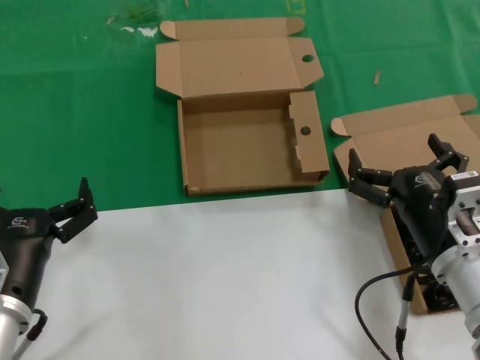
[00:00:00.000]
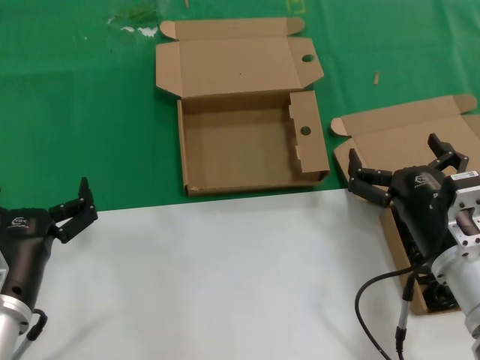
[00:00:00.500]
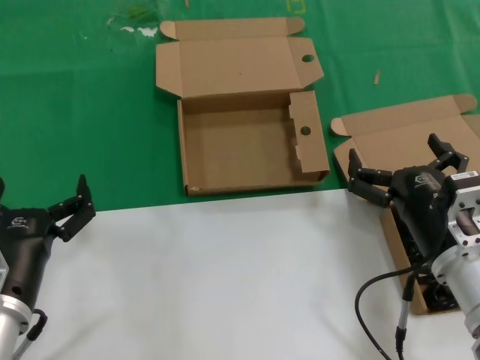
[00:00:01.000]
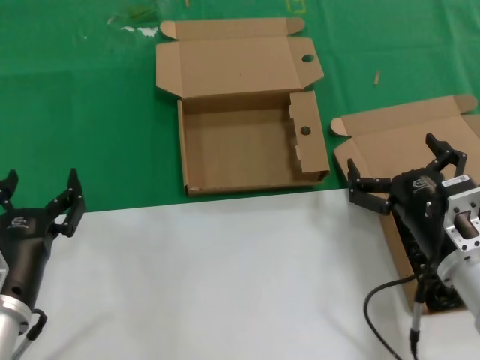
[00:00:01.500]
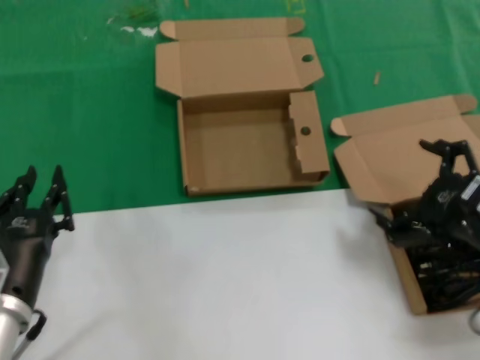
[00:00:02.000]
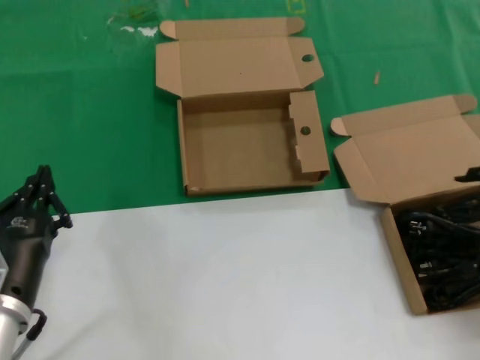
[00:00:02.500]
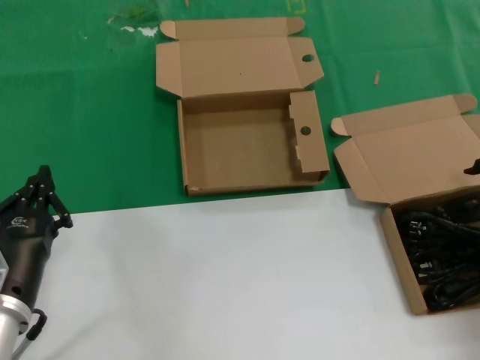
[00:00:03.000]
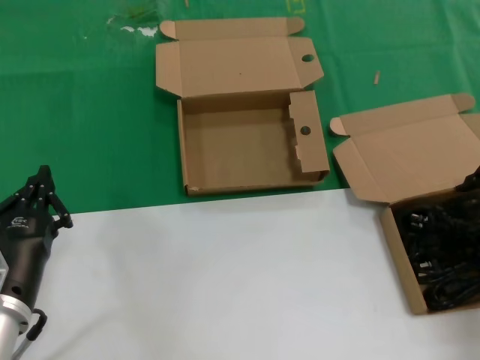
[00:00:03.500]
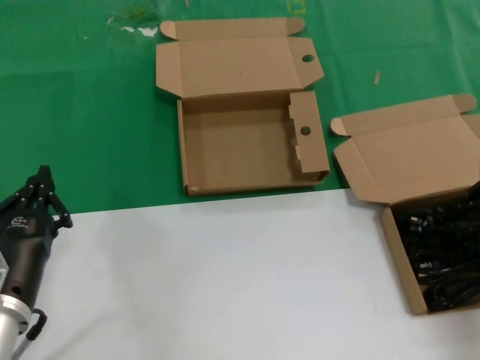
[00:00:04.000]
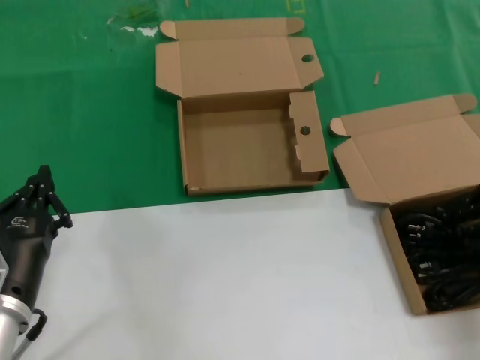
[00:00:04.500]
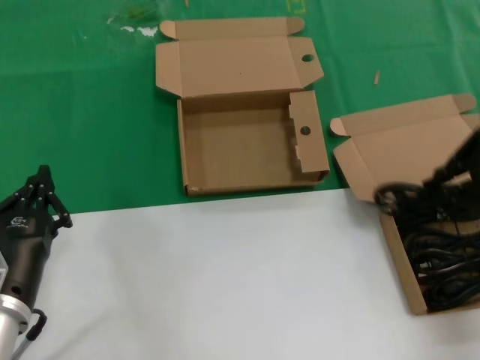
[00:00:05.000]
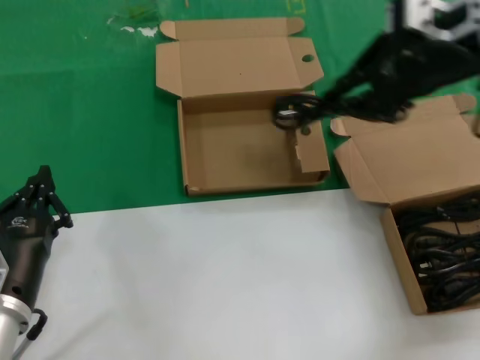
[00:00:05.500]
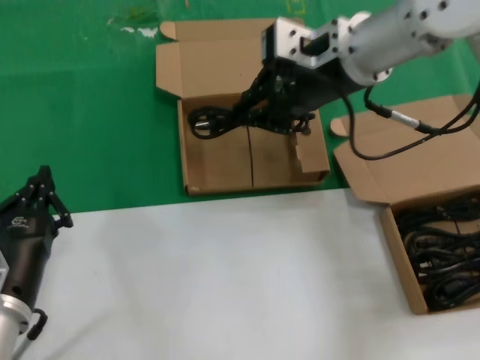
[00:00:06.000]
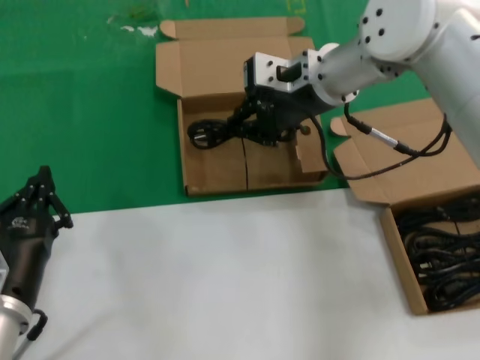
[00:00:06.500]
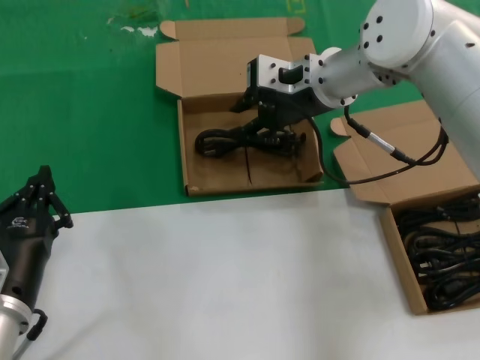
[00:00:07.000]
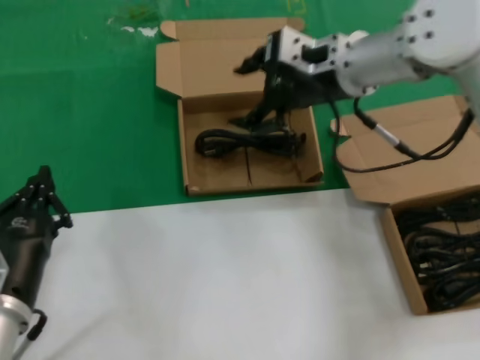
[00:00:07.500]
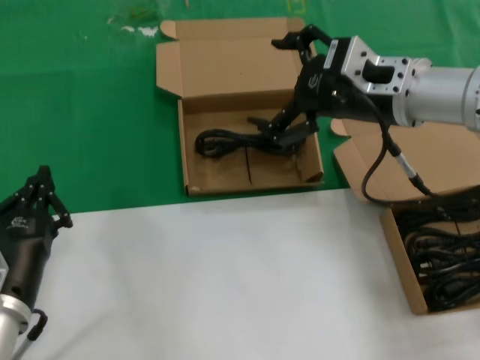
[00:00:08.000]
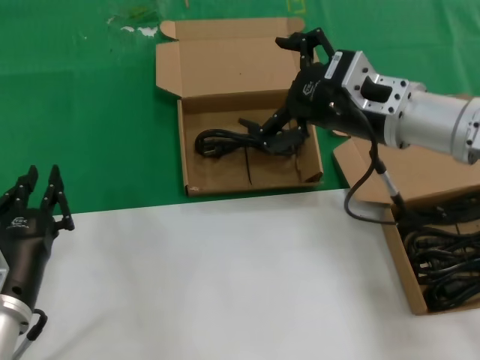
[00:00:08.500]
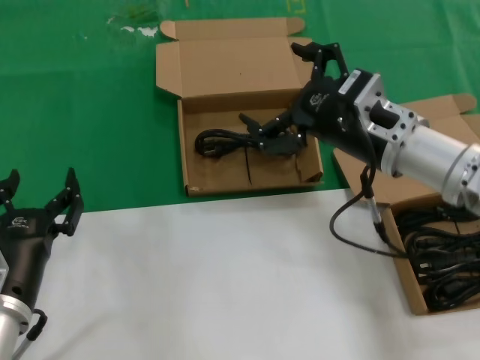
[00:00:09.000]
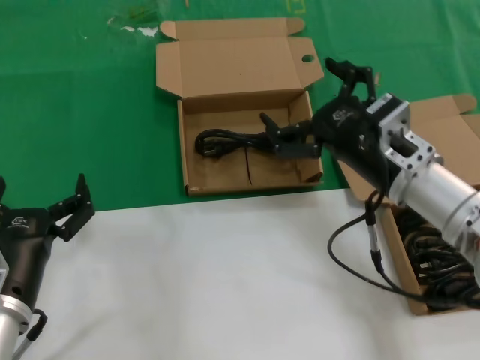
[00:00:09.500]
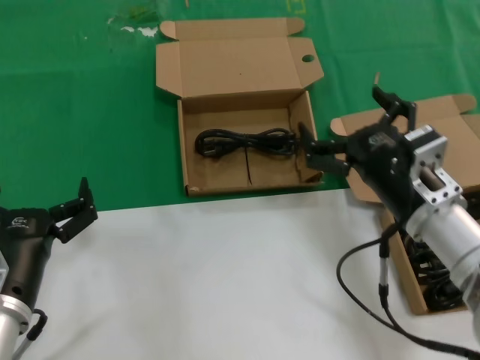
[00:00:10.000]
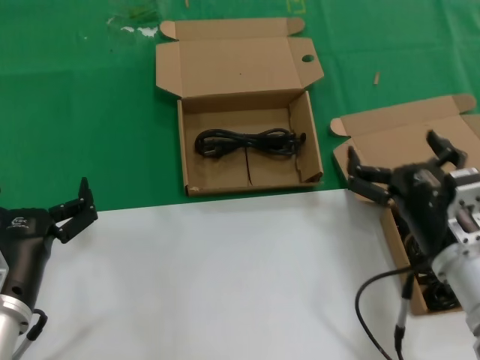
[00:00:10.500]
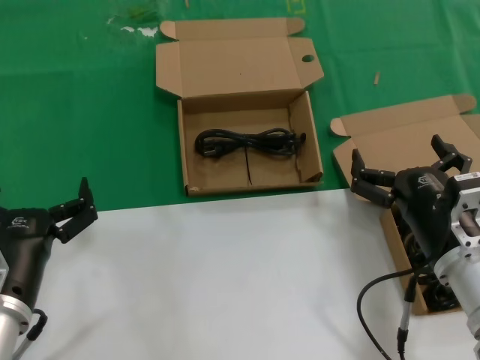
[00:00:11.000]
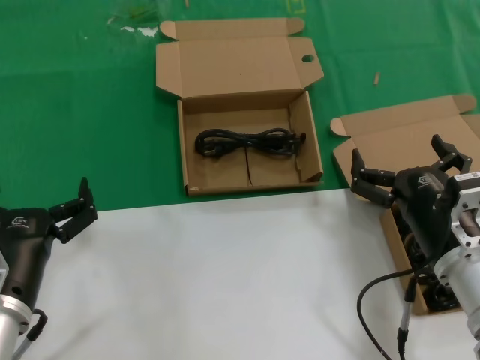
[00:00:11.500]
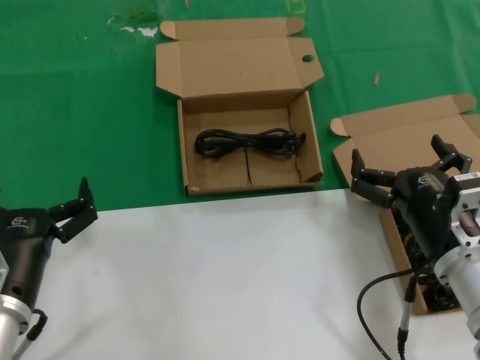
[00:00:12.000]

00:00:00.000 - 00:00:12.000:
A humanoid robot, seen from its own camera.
Task of the whole recording: take the parts from the box containing them and put them into an empty box.
Step, 00:00:00.000 - 00:00:04.000: Grasp the data cable.
Step, 00:00:04.500 - 00:00:07.000: Place the data cable in the another box.
00:00:00.000 - 00:00:02.000: The right hand travels to the right and upward by some 10 cm.
00:00:02.000 - 00:00:04.000: The right hand travels forward, upward and to the right by some 15 cm.
00:00:04.000 - 00:00:06.000: The right hand heads to the left and upward, covering about 25 cm.
00:00:06.000 - 00:00:08.000: The right hand goes roughly 10 cm downward and to the right.
00:00:08.000 - 00:00:10.000: The right hand shifts about 20 cm downward and backward.
00:00:10.000 - 00:00:12.000: The right hand ends up approximately 5 cm from where it was.

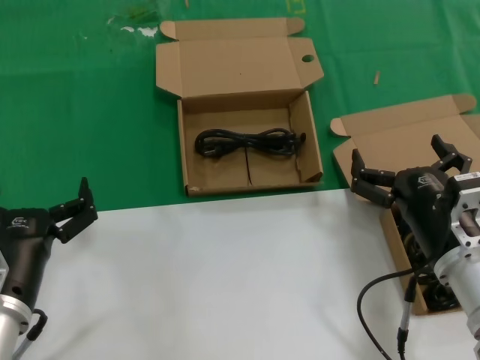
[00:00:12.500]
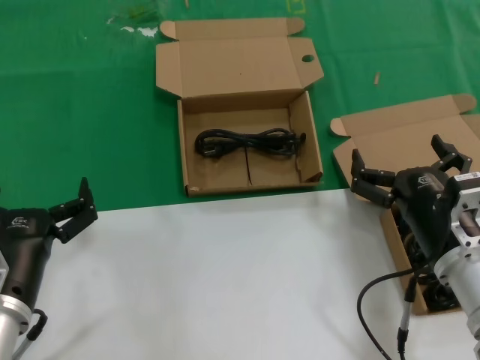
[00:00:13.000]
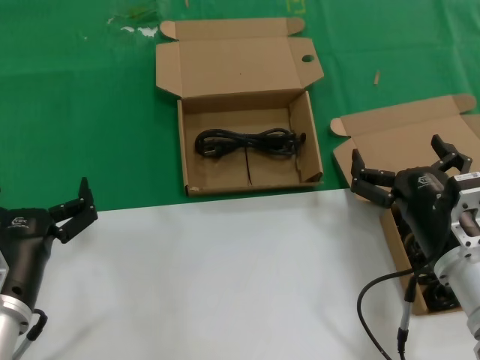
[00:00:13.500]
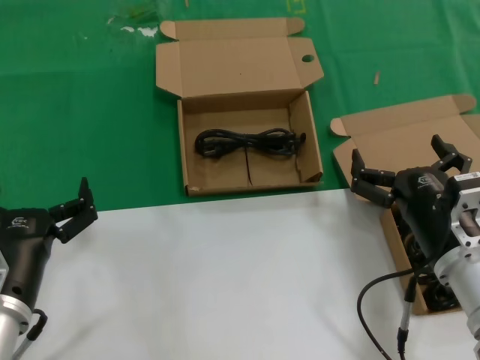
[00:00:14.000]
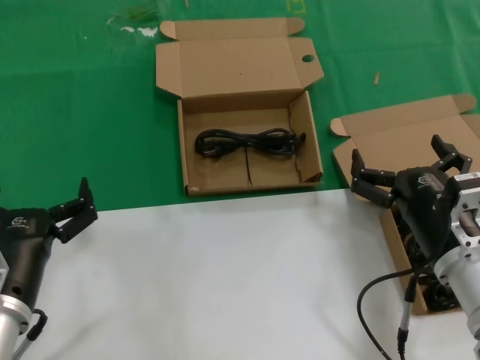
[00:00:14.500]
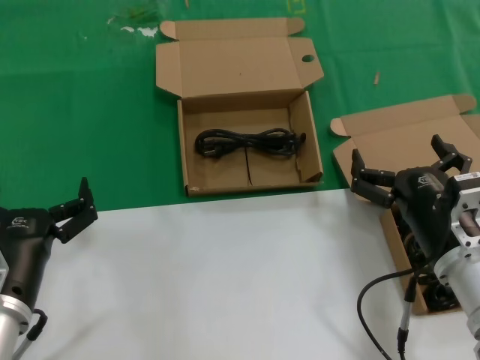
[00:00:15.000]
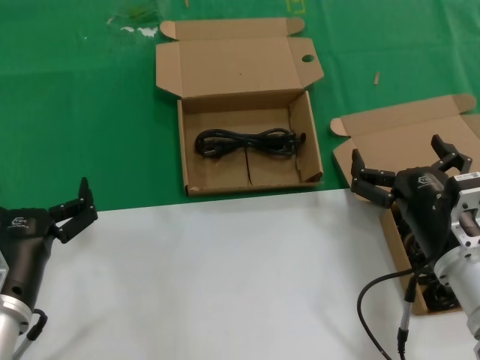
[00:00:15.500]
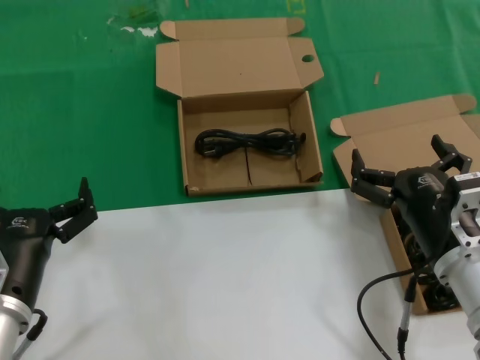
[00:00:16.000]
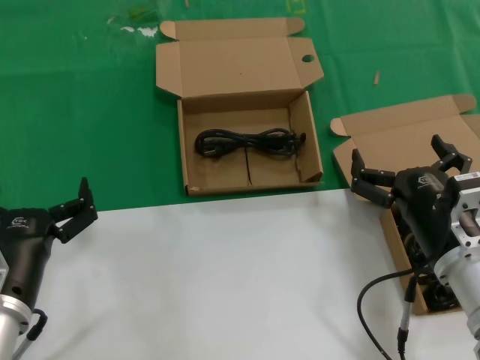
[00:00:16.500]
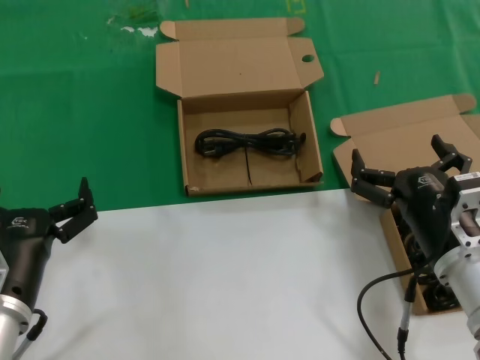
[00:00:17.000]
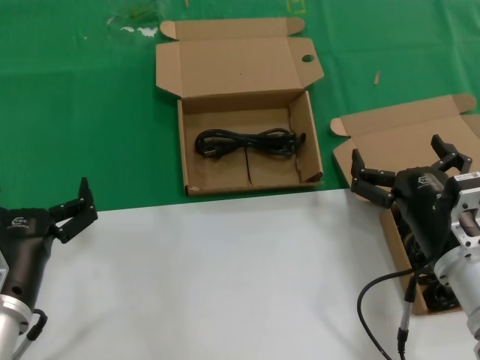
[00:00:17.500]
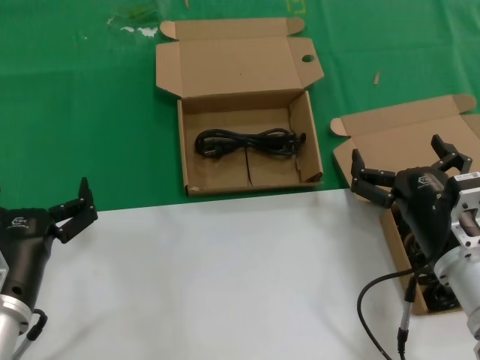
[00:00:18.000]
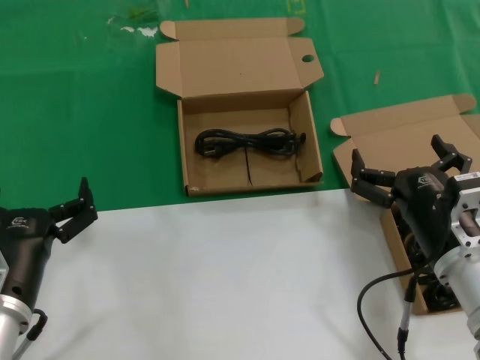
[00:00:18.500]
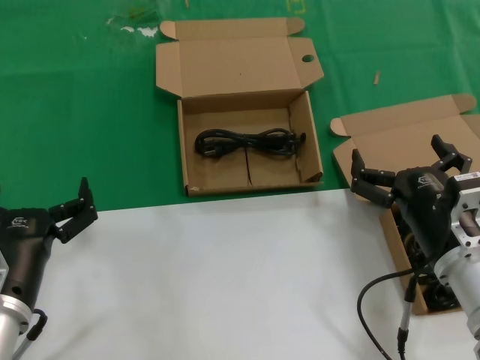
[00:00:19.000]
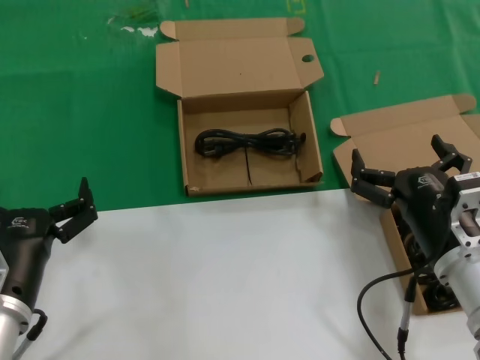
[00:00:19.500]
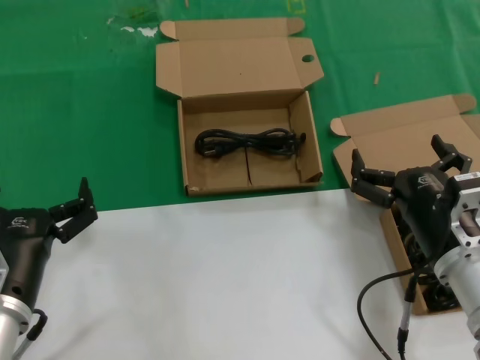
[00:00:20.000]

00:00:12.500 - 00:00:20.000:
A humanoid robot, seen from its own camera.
Task of the whole recording: take the parts from the box containing them and put them into an empty box.
00:00:12.500 - 00:00:20.000: Both hands stay put.

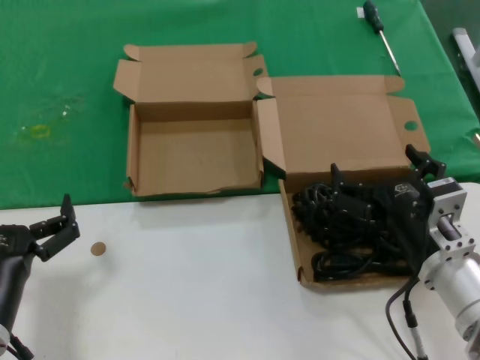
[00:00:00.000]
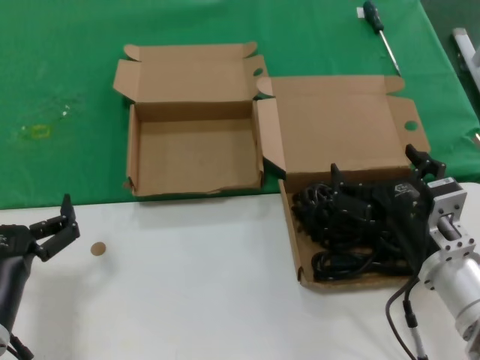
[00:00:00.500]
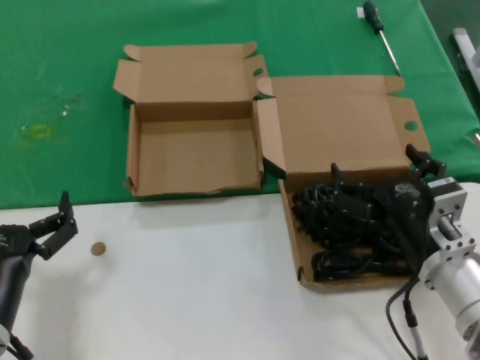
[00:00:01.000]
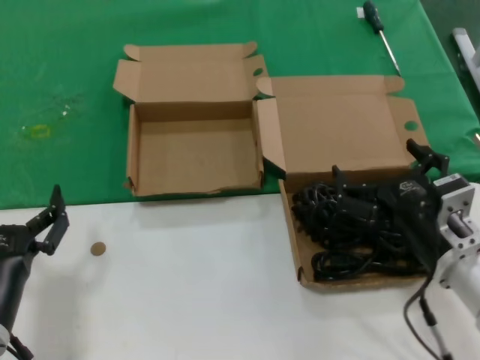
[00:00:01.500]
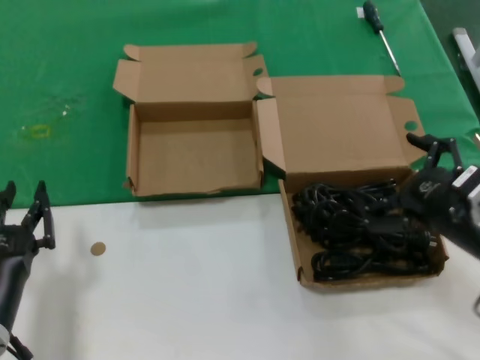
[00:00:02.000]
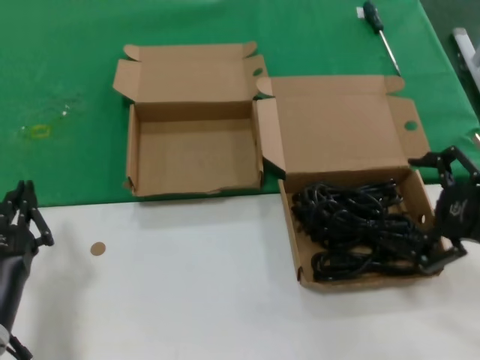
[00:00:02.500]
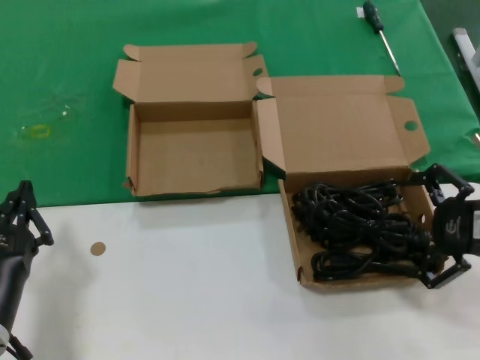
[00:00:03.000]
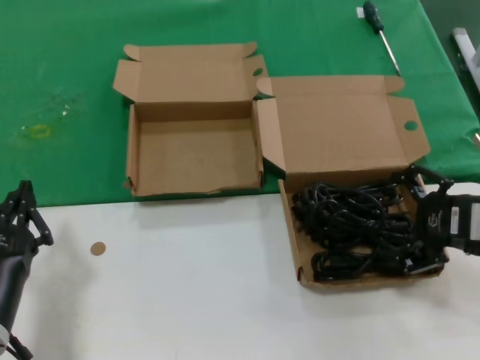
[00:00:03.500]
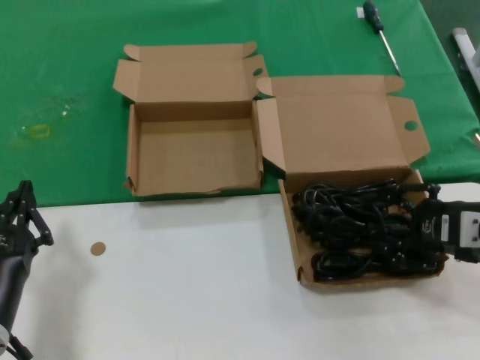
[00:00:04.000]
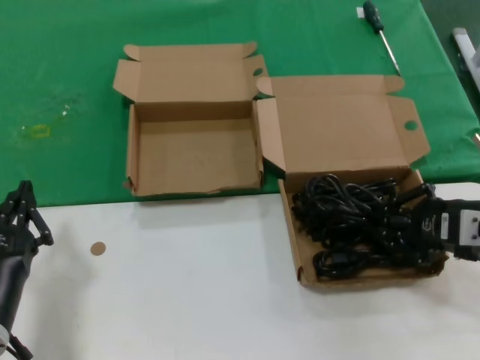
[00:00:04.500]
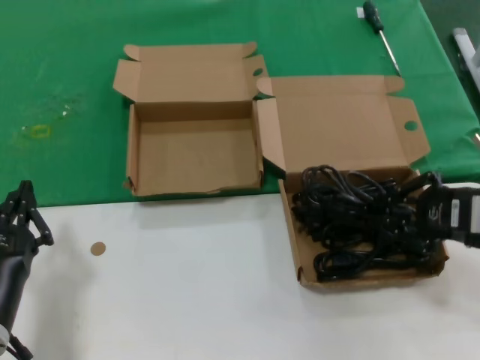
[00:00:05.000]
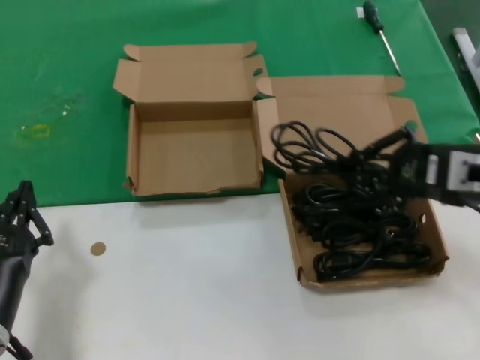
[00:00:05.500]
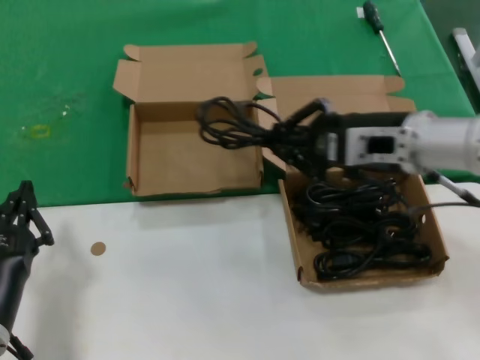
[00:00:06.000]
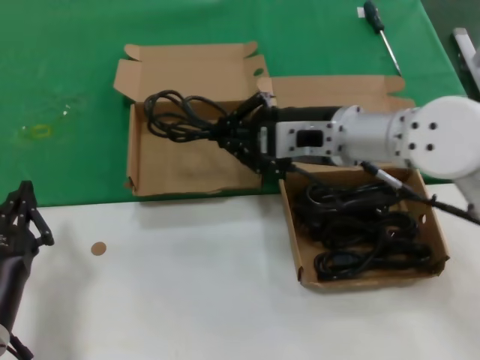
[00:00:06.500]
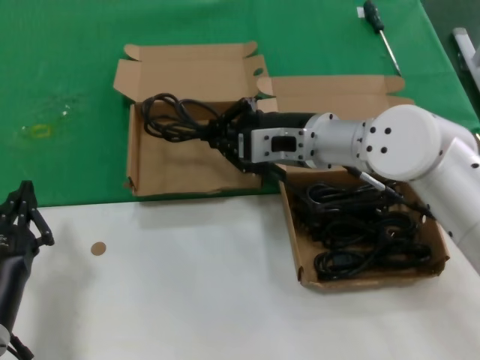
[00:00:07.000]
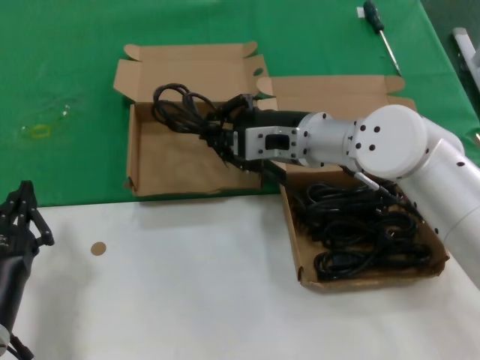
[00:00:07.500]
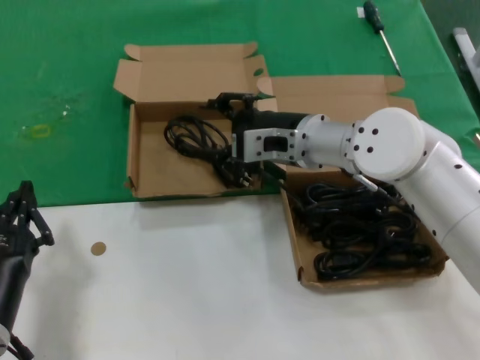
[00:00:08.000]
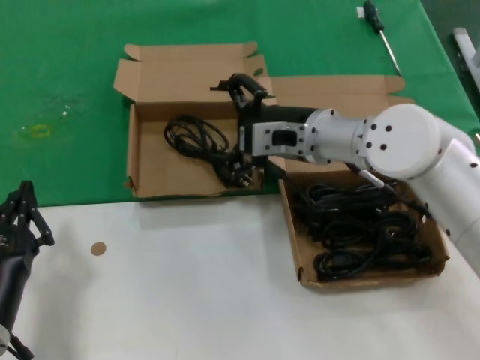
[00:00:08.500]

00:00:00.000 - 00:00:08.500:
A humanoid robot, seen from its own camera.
Task of the whole recording: take the parts from the box containing them and put them into an empty box.
Step, 00:00:00.000 - 00:00:04.500: Grasp the data cable.
Step, 00:00:05.000 - 00:00:08.000: Place the data cable in the another box.
00:00:00.000 - 00:00:02.000: The right hand heads to the right and upward, covering approximately 10 cm.
00:00:02.000 - 00:00:04.000: The right hand moves approximately 5 cm.
00:00:04.000 - 00:00:06.500: The right hand travels to the left and forward by approximately 20 cm.
00:00:06.500 - 00:00:08.500: The right hand ends up some 5 cm from where it was.
